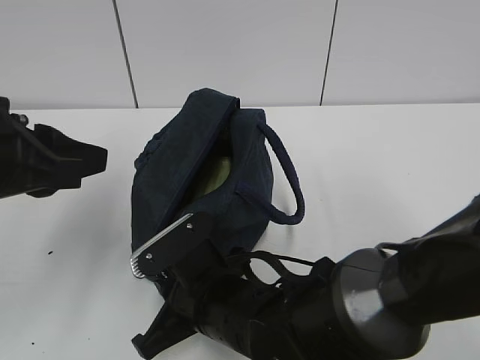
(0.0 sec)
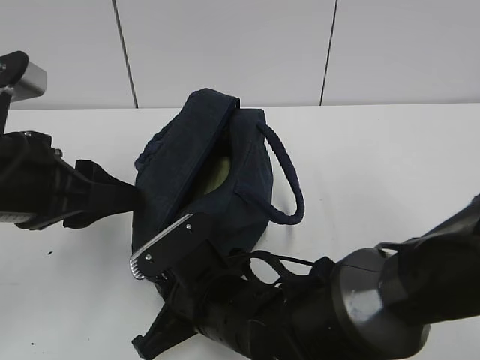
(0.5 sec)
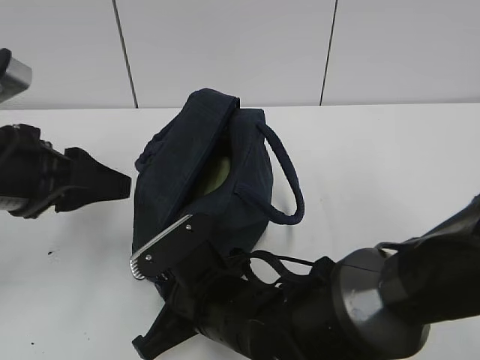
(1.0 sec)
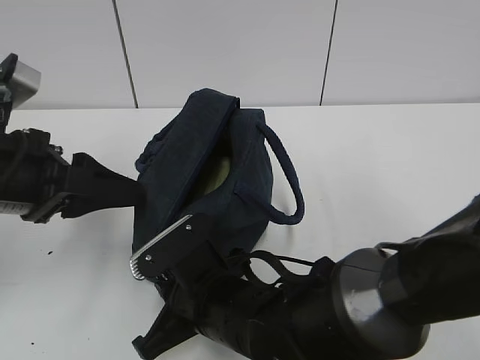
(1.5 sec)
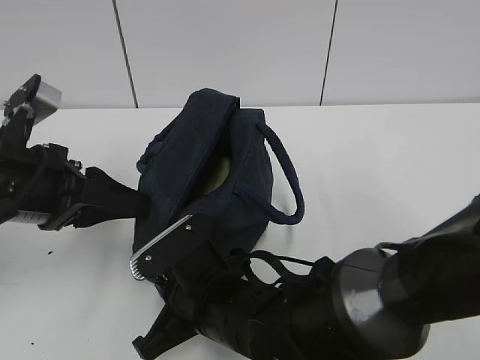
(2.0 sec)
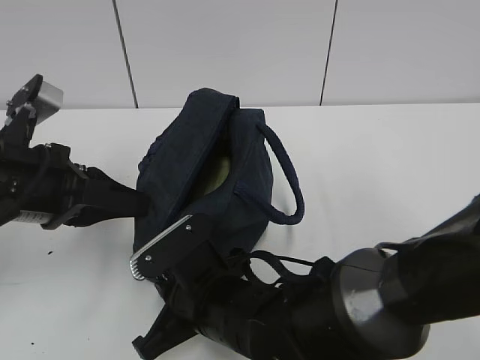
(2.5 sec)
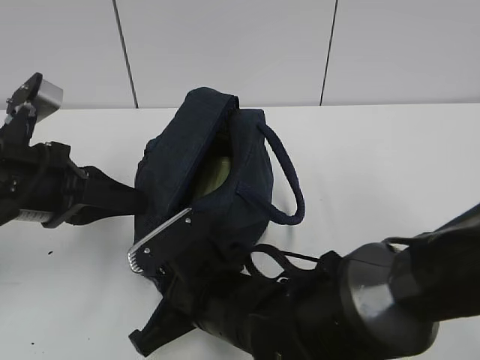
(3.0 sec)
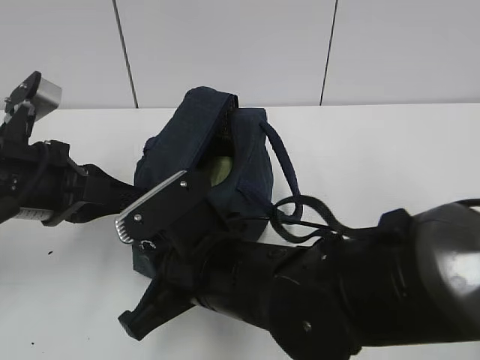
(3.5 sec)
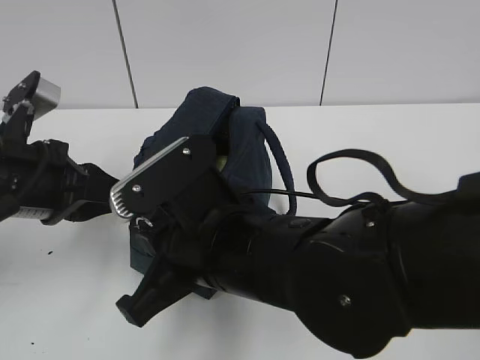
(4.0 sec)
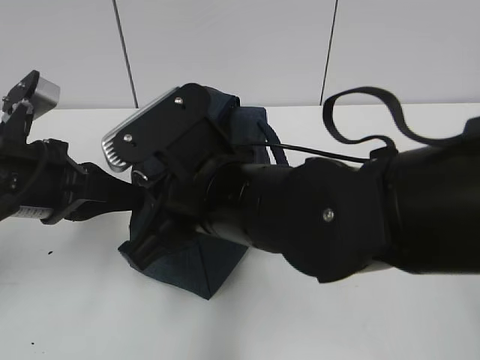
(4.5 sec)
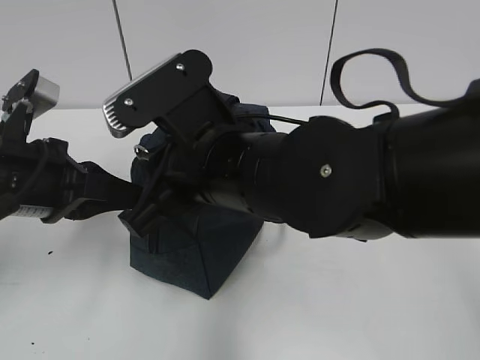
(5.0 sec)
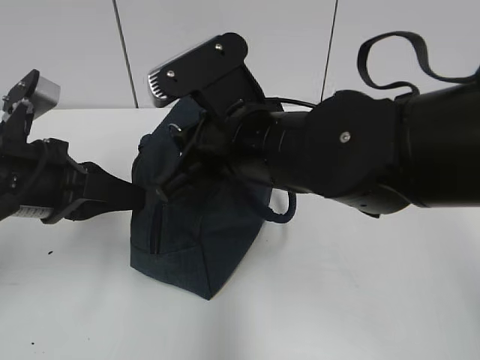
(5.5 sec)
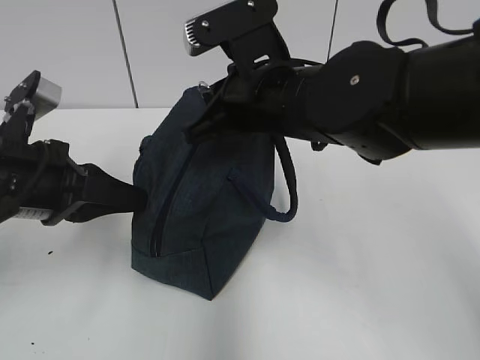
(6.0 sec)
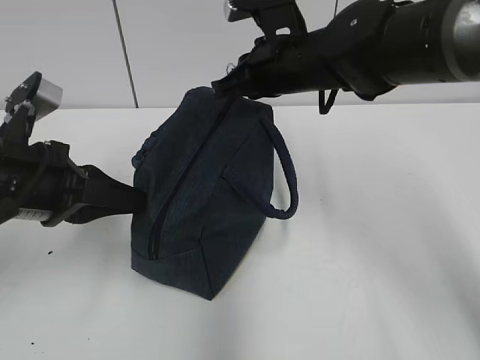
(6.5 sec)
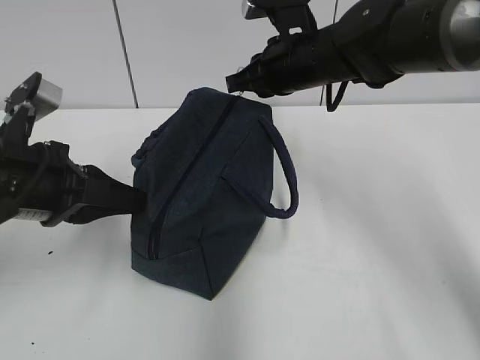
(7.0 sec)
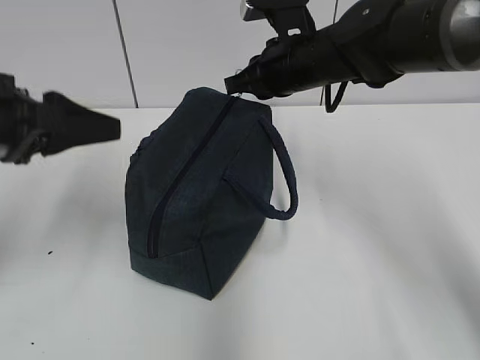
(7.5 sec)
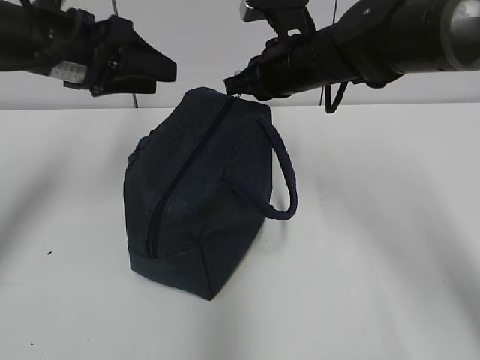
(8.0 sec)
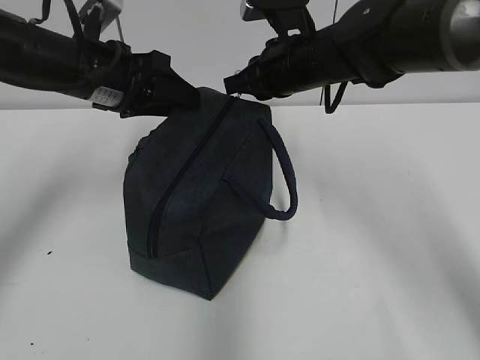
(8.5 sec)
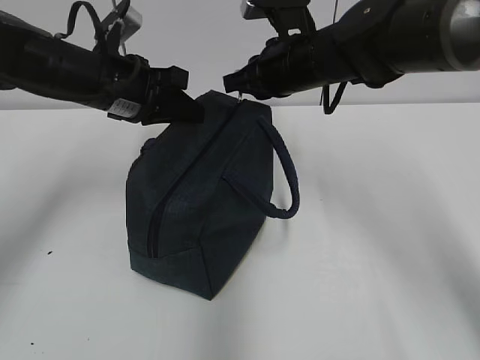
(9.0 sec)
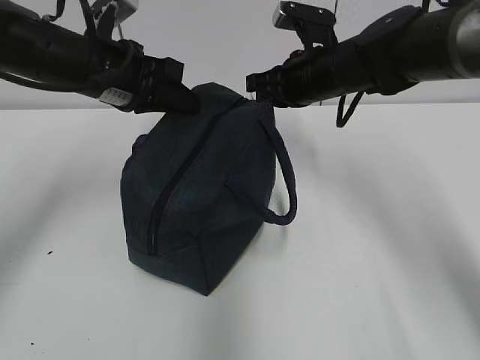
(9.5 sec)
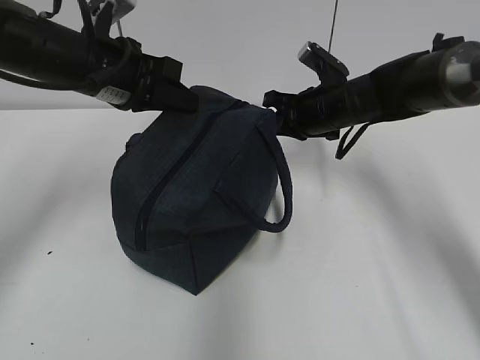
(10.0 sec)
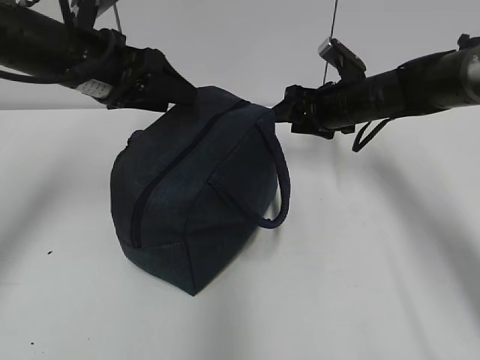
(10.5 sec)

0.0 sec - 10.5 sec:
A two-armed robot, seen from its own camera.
Step, 0.0 sec - 3.5 sec: Grab the lunch bag with your left hand.
Step, 4.0 sec - 9.5 sec: Pull the zipper with your right hand.
0.0 sec - 2.0 sec: The left gripper travels downward by some 5 cm.
2.0 sec - 4.0 sec: The right gripper shifts some 10 cm upward, while the left gripper closes.
4.0 sec - 6.5 sec: The right gripper shifts roughly 20 cm forward and to the right.
6.5 sec - 8.5 sec: The left gripper goes about 15 cm forward, and opens its fingers.
8.5 sec - 10.5 sec: The right gripper goes roughly 10 cm to the right and downward, and opens. Meanwhile the left gripper closes, then reopens.

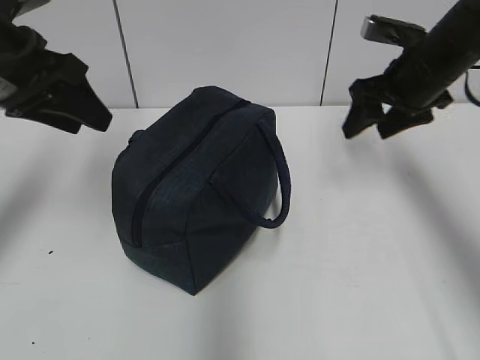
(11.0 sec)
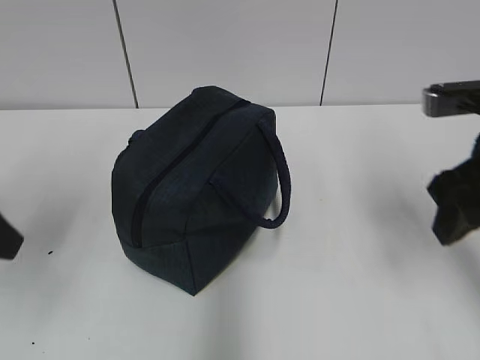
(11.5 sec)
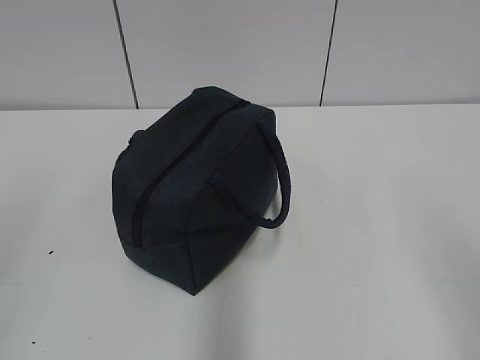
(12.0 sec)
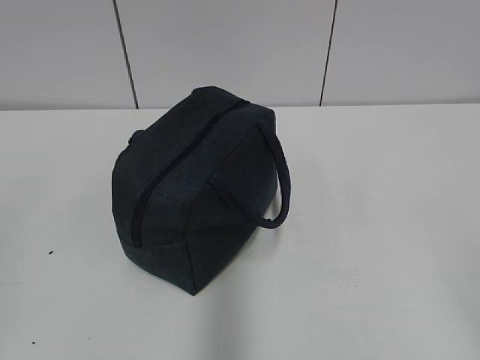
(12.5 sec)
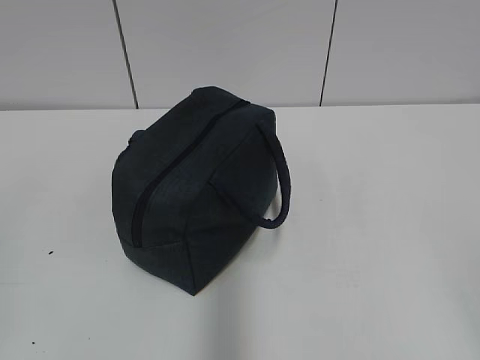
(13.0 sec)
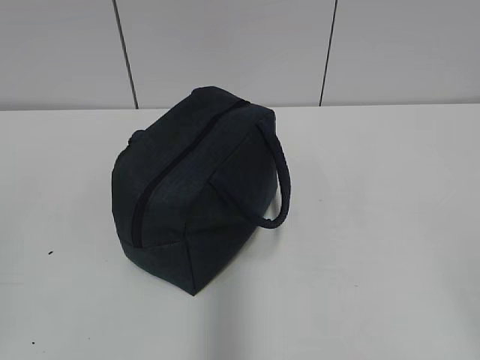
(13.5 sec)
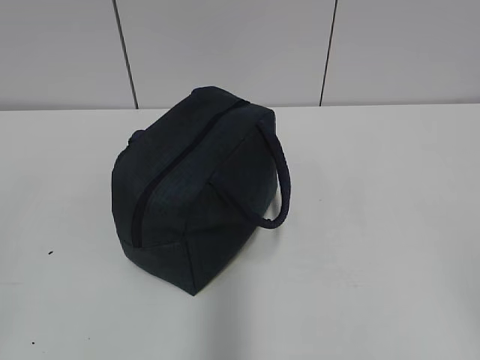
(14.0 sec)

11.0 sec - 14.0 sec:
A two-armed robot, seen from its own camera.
11.0 sec - 12.5 sec: The two grippers go roughly 35 cm backward.
